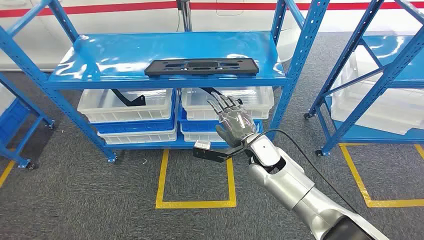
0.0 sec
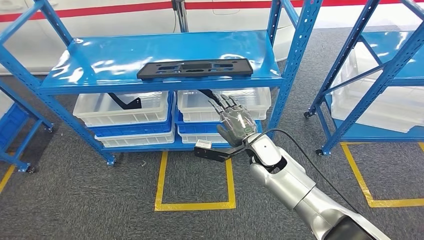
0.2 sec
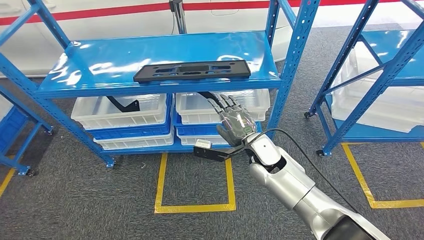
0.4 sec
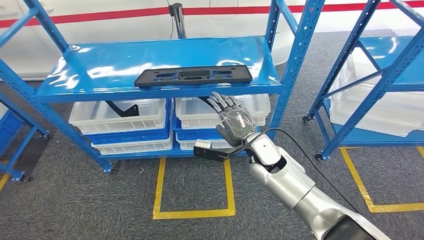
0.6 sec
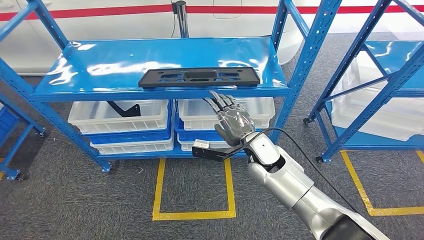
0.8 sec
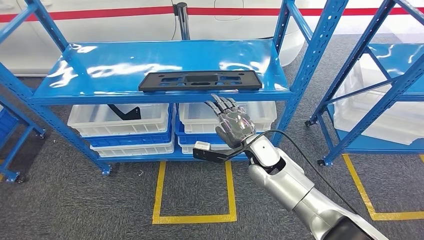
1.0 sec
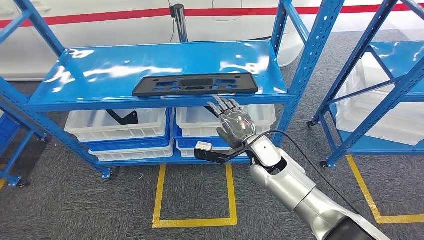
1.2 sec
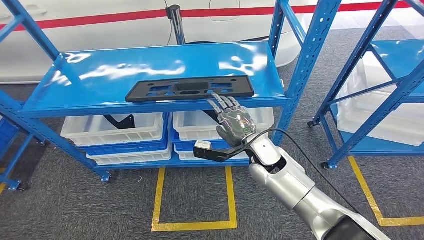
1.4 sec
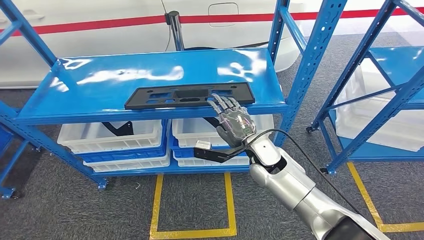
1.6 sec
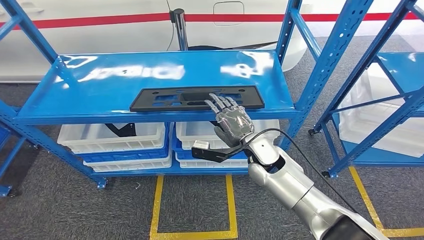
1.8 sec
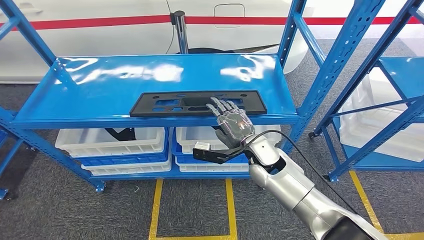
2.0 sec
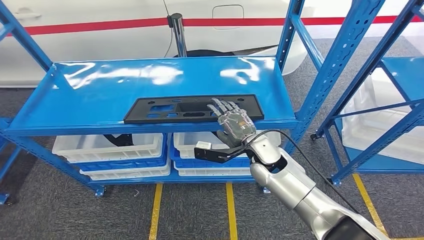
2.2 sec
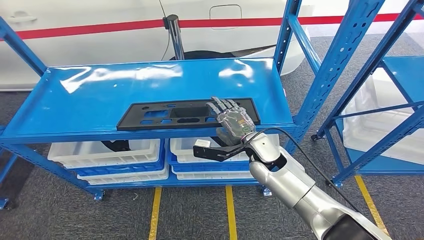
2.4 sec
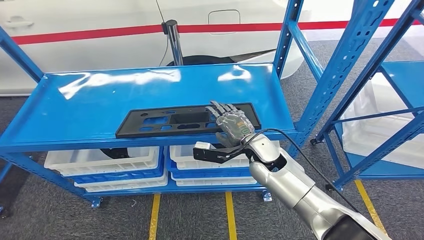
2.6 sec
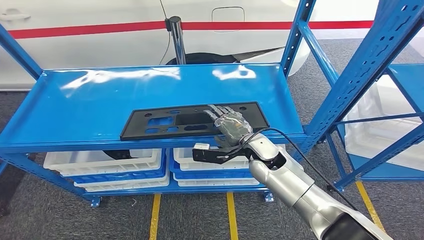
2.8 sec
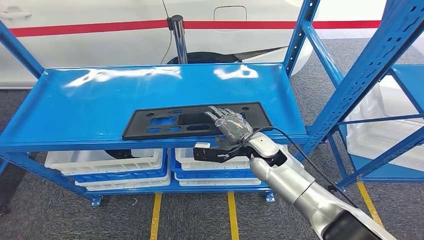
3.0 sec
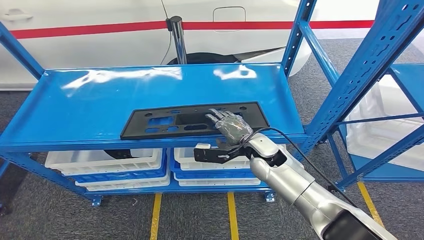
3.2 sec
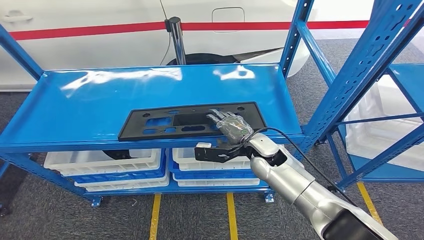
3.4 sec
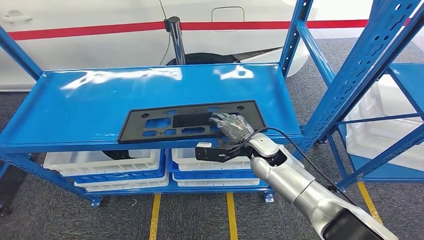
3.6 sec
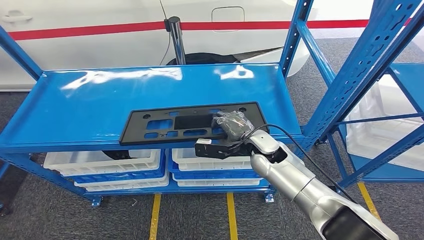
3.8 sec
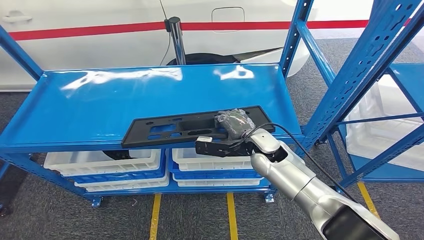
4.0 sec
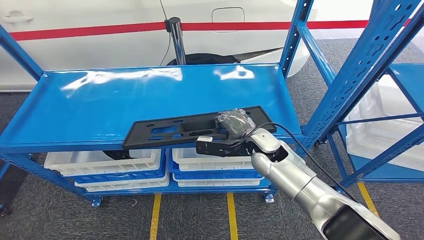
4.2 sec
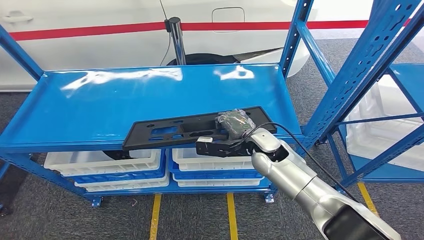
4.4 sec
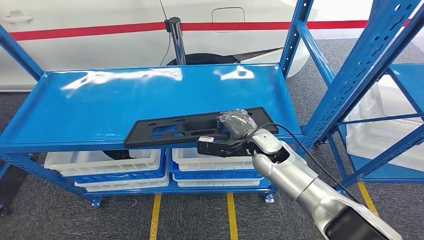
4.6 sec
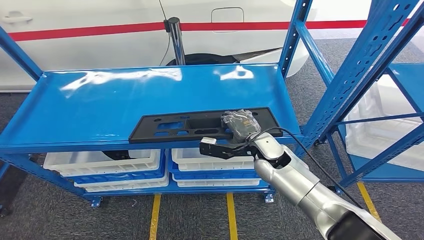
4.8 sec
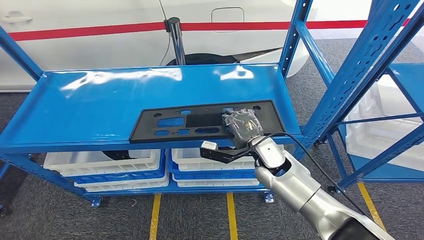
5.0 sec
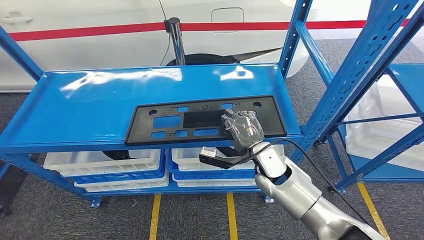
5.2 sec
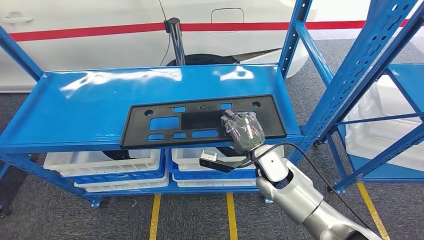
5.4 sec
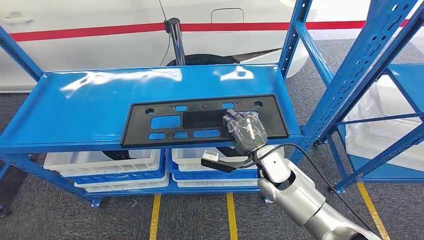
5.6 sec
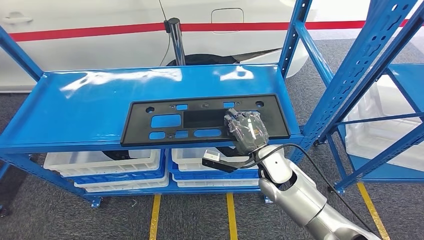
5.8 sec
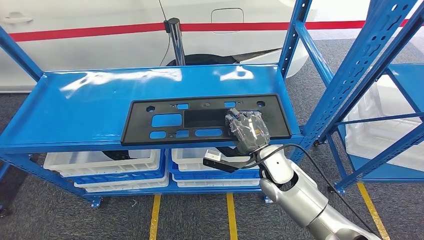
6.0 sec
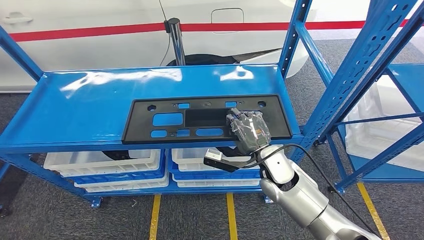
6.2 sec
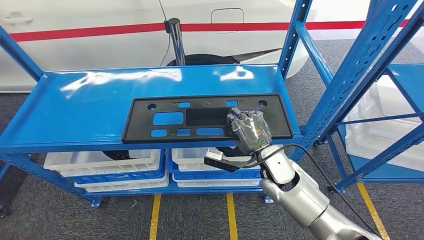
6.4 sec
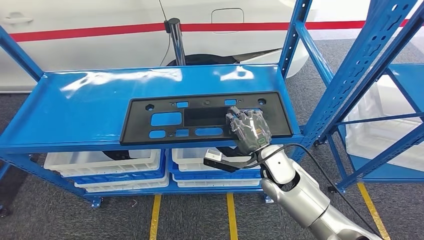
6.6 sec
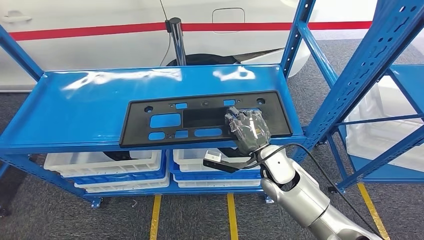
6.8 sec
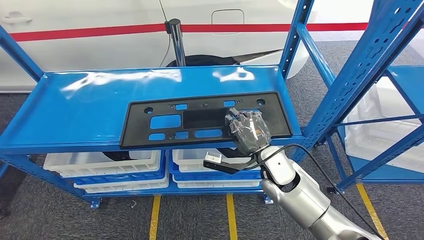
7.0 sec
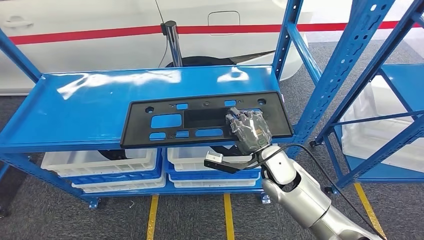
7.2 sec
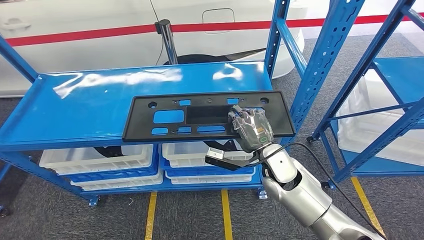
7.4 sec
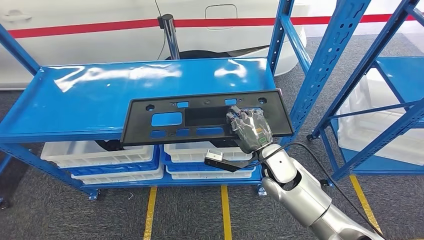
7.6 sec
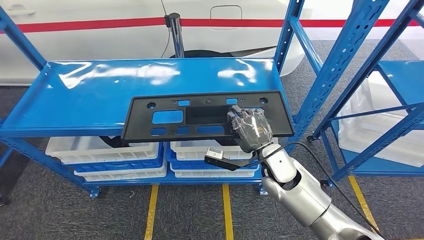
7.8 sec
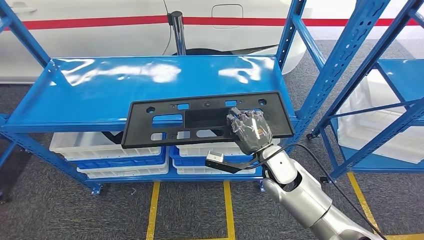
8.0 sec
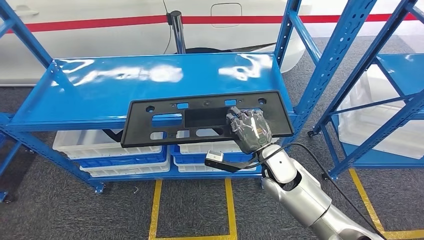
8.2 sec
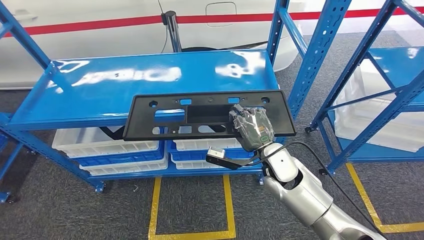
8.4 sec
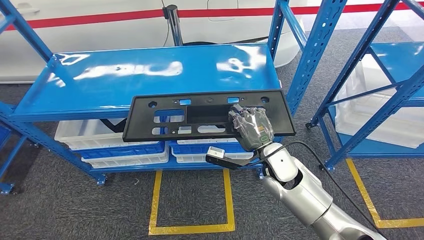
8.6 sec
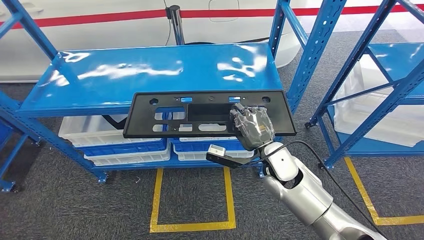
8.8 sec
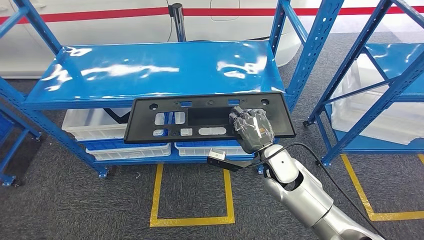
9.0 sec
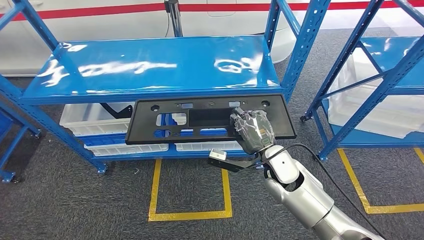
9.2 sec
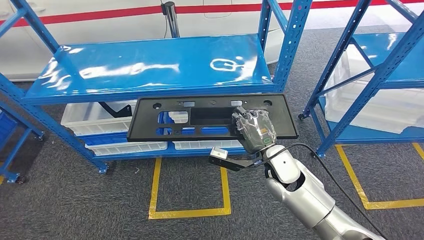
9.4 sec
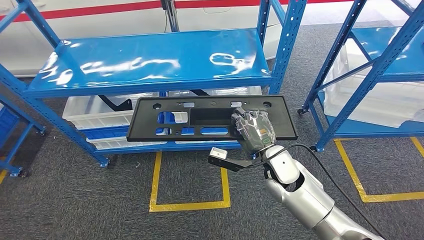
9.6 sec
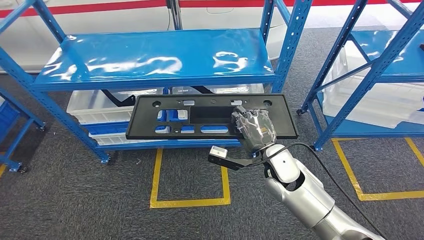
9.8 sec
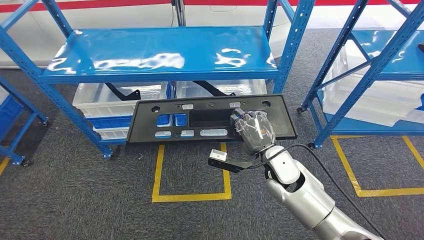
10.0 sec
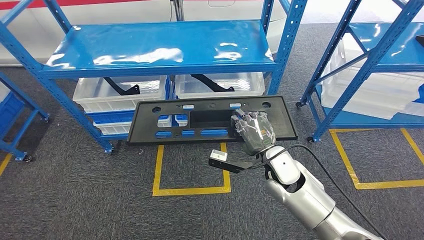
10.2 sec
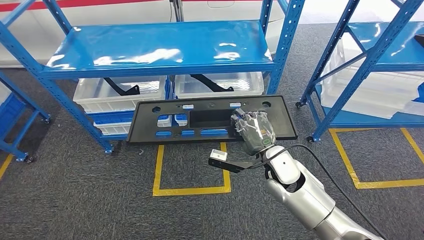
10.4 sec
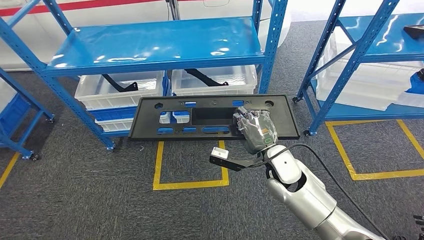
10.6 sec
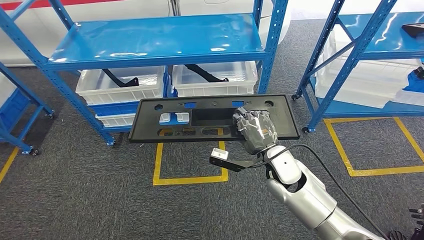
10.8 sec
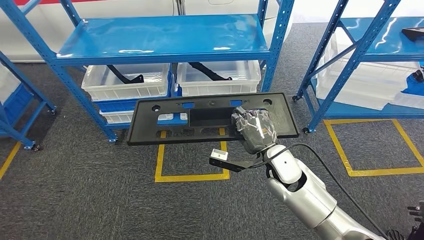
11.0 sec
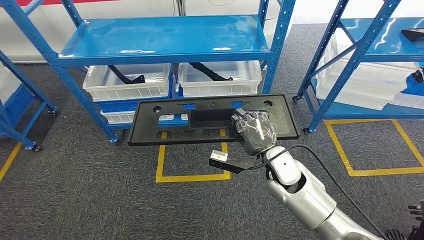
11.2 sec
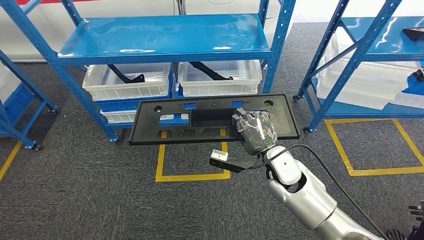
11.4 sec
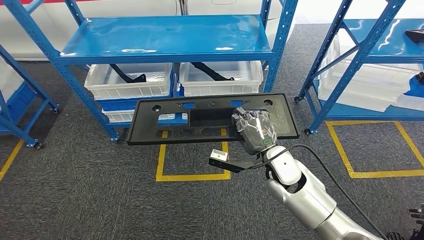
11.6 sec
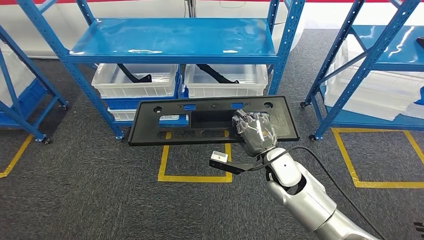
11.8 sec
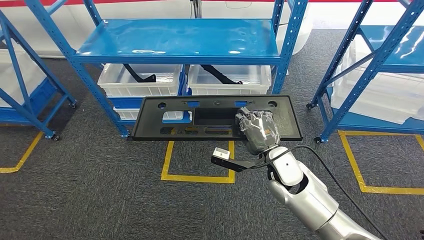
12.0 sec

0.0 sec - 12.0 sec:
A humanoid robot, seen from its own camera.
Step, 0.0 sec - 10.8 sec: Pick up the large parts from the shelf.
4.4 sec - 6.0 sec: The right hand changes place by approximately 5 cm.

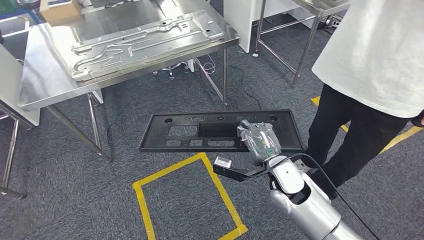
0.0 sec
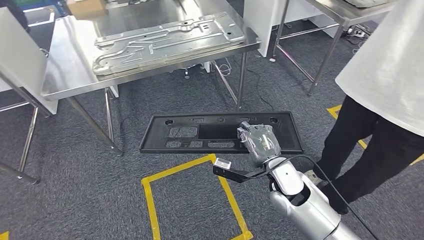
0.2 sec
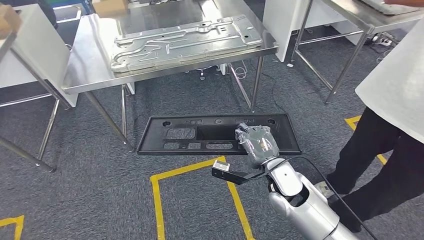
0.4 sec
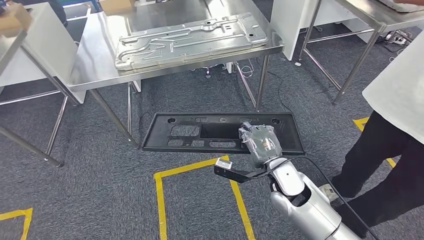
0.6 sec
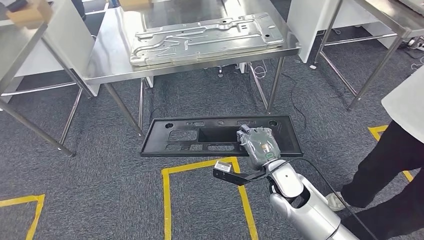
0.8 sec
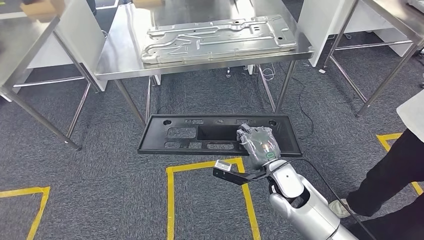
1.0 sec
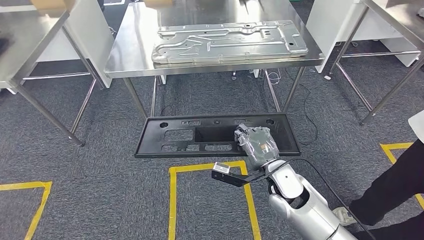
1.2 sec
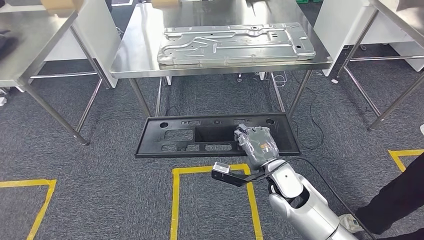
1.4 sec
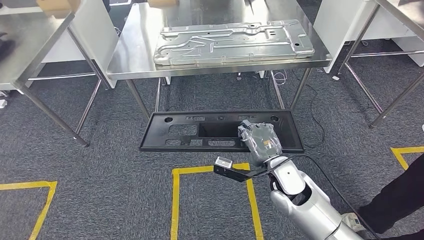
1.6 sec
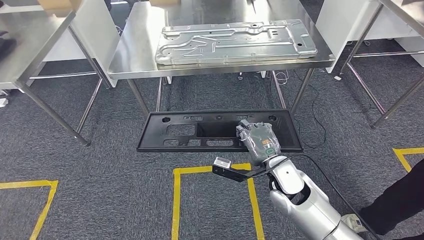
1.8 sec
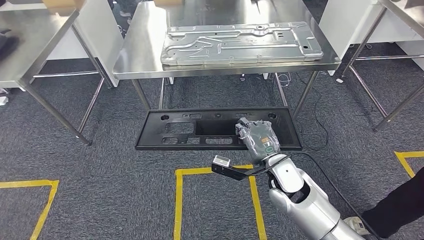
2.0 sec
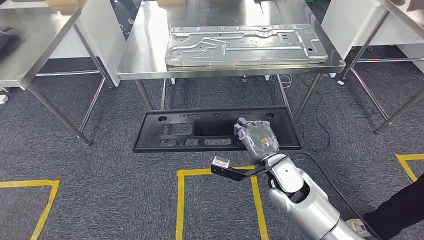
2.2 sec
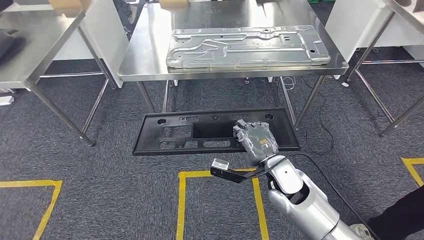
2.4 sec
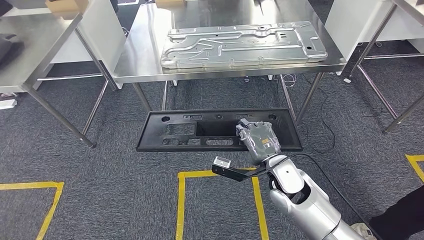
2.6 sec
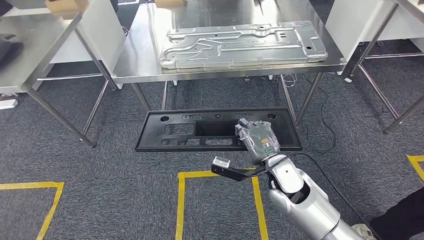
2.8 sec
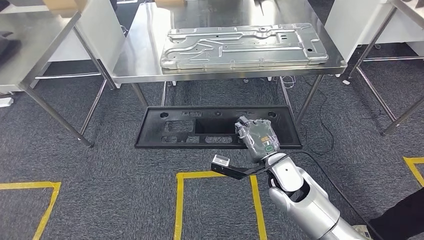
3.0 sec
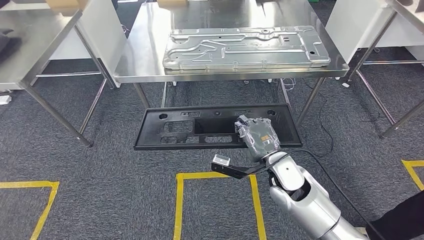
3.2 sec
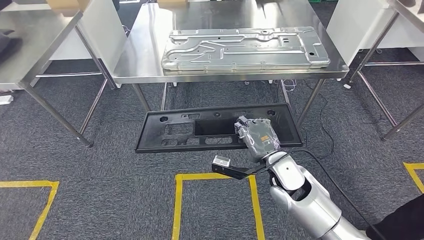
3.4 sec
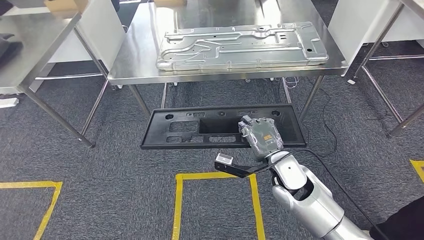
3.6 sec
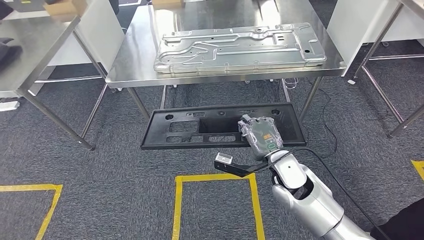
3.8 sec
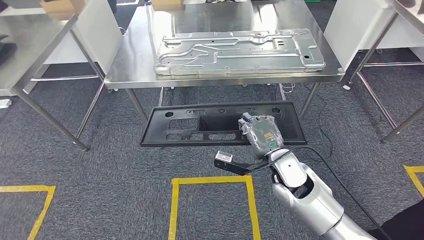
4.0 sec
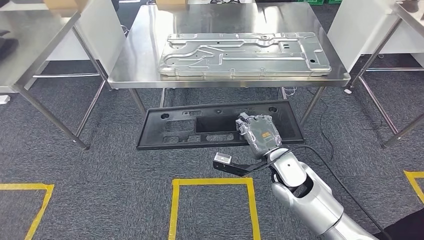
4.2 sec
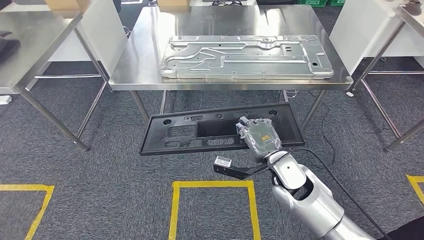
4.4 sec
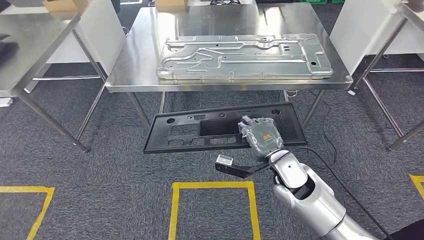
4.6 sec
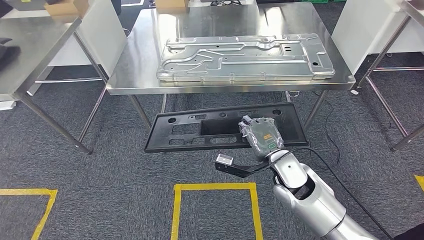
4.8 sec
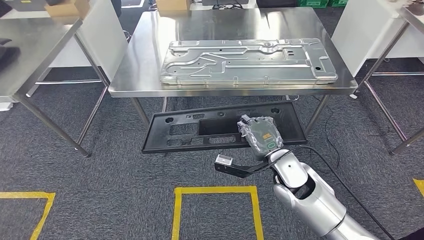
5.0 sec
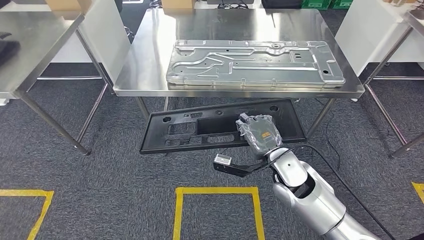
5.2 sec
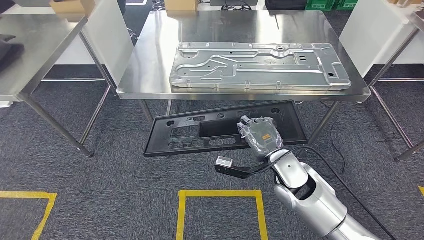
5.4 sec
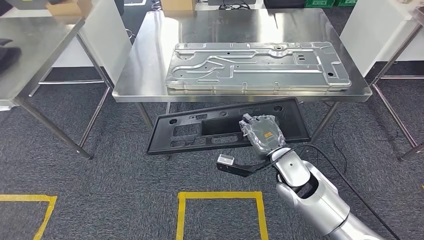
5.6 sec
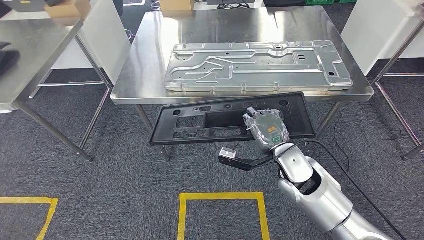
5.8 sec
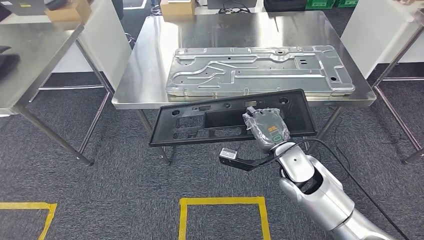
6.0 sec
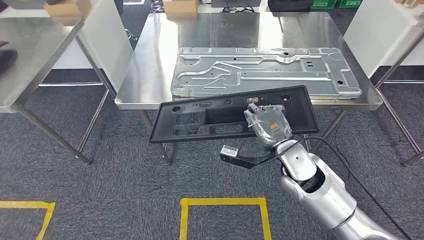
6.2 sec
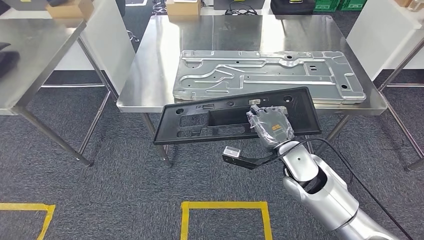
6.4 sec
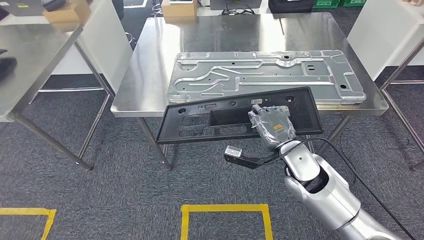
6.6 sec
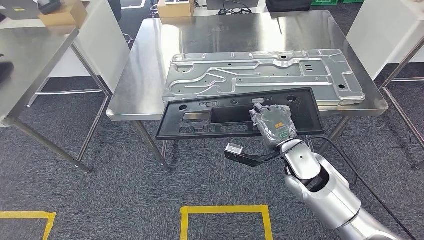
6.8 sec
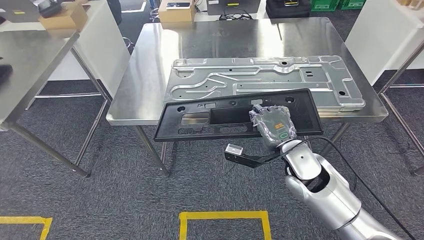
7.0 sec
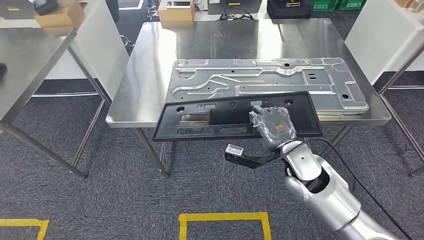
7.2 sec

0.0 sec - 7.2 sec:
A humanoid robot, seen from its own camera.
Step, 0.0 sec - 5.6 sec: Move the large parts to the workbench.
